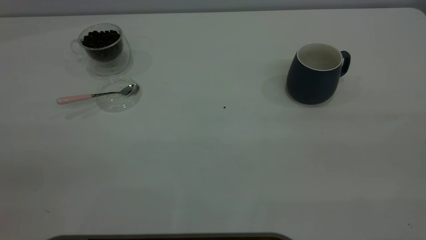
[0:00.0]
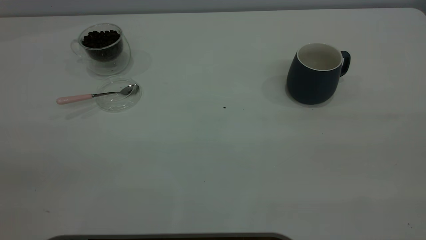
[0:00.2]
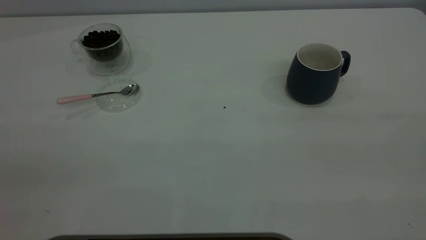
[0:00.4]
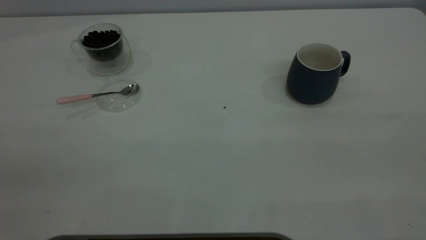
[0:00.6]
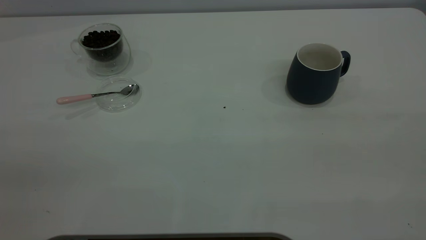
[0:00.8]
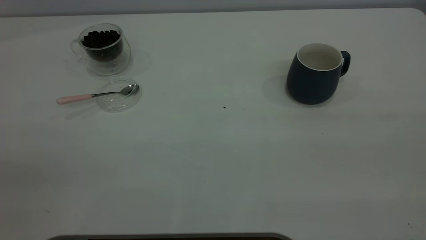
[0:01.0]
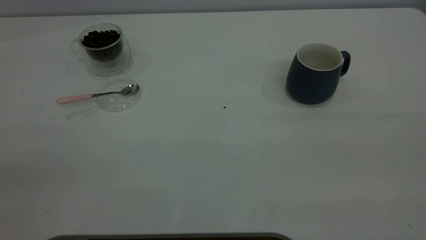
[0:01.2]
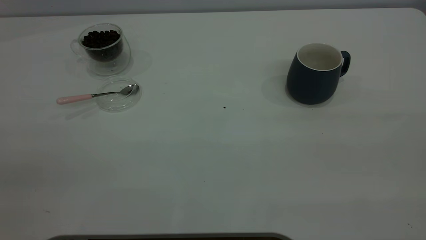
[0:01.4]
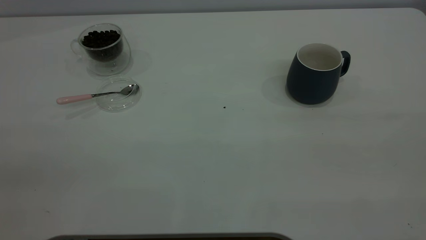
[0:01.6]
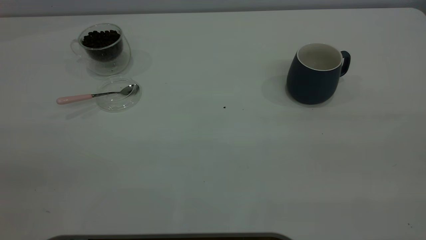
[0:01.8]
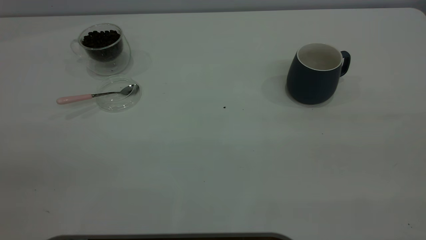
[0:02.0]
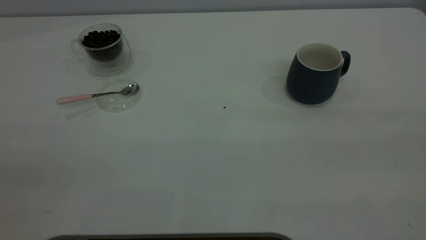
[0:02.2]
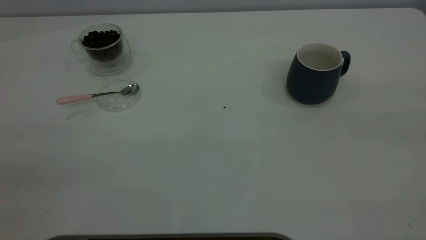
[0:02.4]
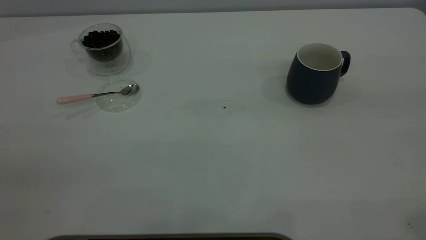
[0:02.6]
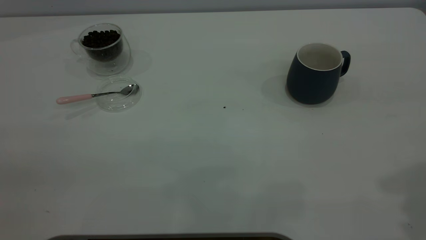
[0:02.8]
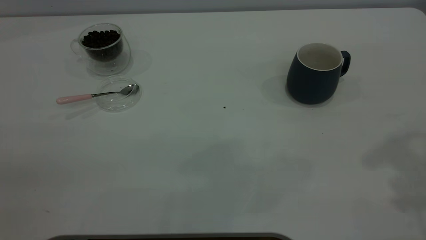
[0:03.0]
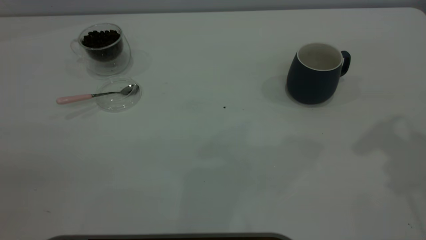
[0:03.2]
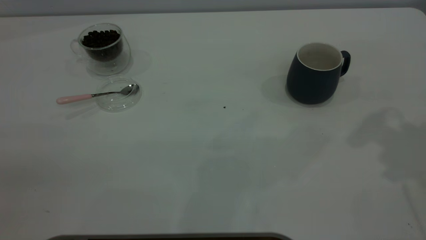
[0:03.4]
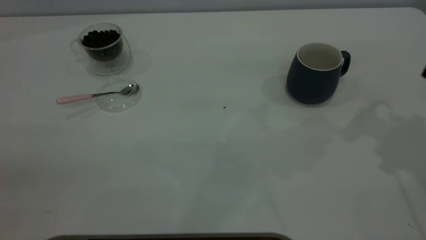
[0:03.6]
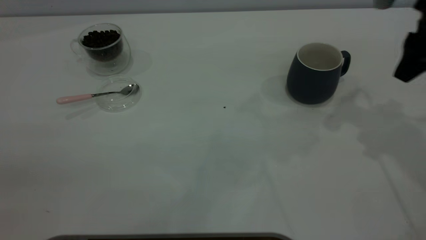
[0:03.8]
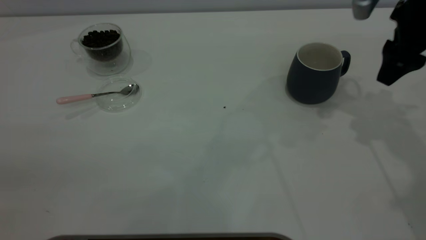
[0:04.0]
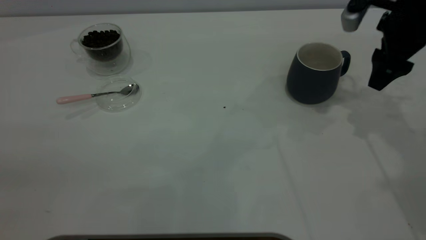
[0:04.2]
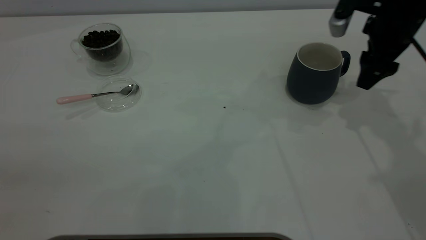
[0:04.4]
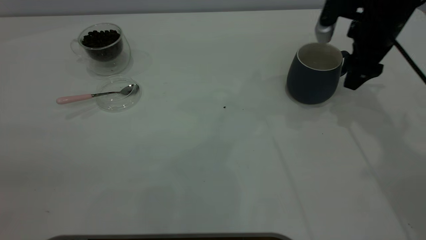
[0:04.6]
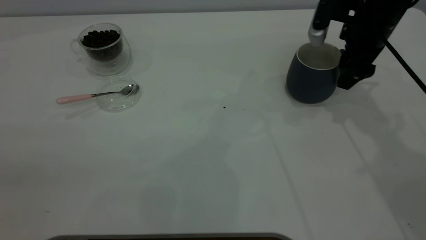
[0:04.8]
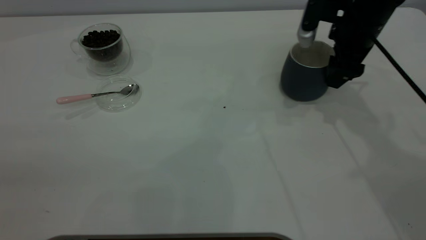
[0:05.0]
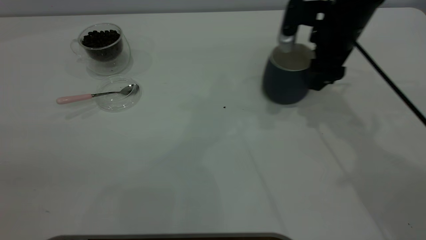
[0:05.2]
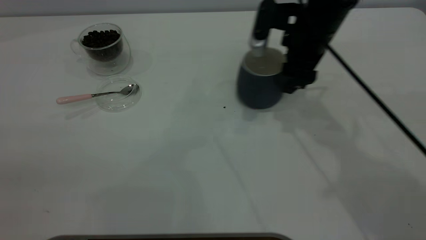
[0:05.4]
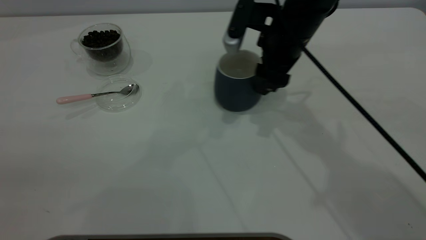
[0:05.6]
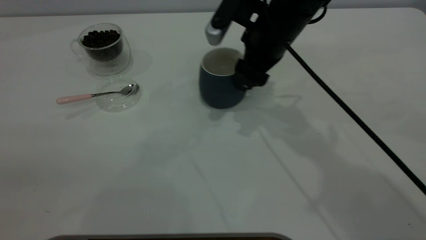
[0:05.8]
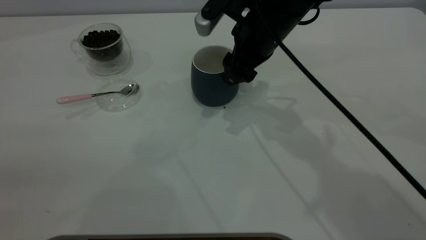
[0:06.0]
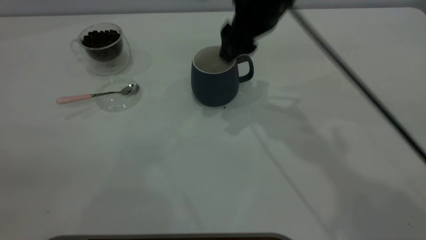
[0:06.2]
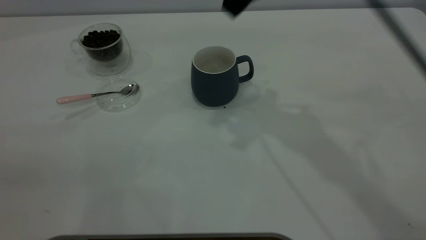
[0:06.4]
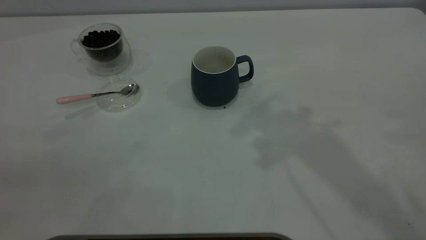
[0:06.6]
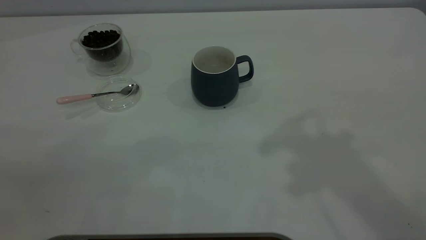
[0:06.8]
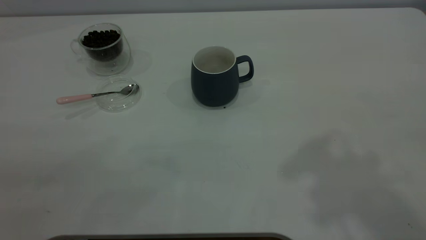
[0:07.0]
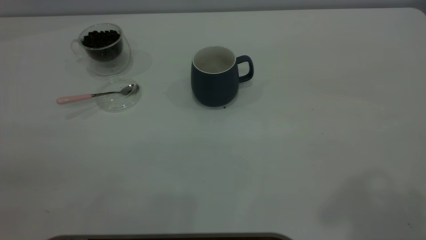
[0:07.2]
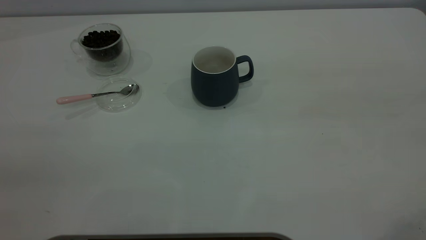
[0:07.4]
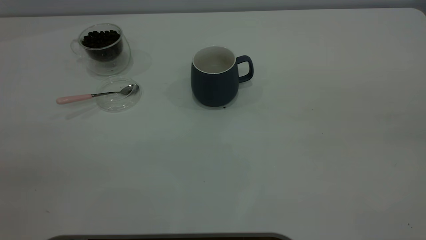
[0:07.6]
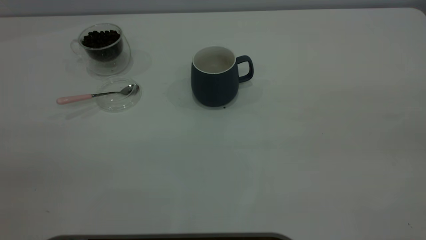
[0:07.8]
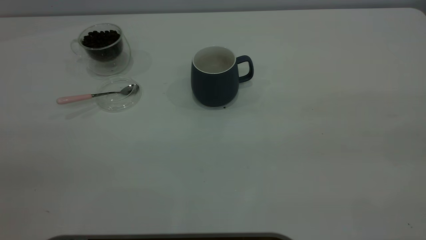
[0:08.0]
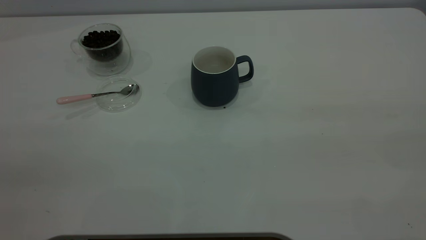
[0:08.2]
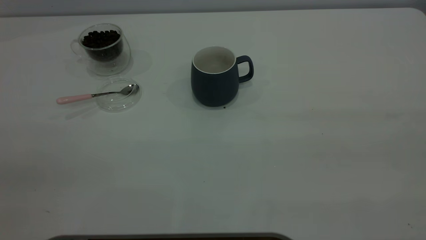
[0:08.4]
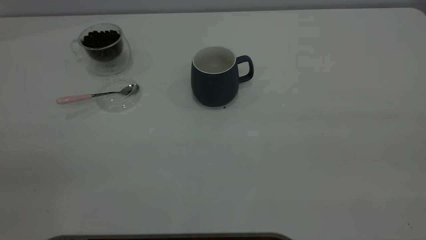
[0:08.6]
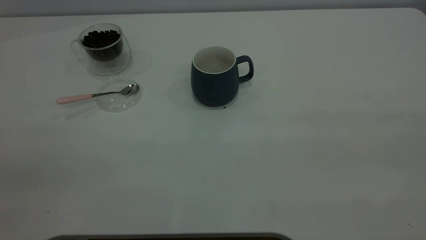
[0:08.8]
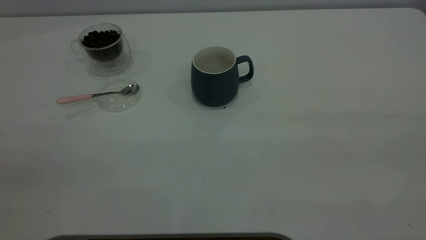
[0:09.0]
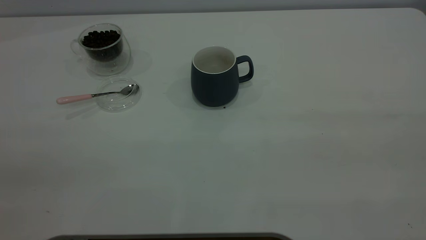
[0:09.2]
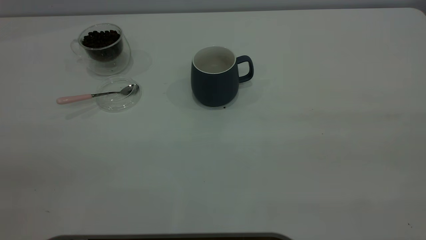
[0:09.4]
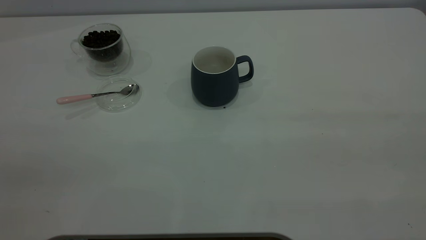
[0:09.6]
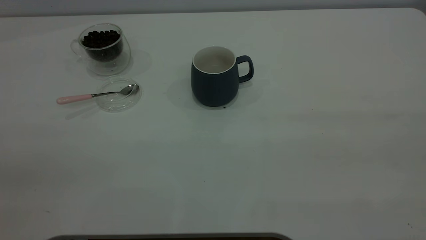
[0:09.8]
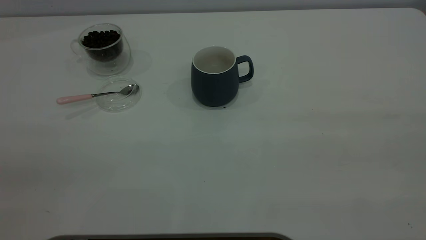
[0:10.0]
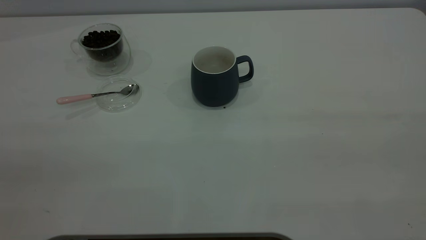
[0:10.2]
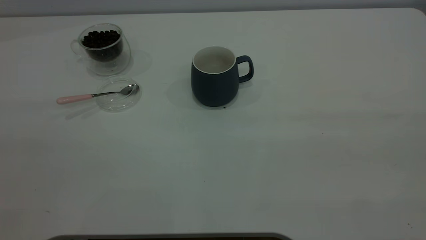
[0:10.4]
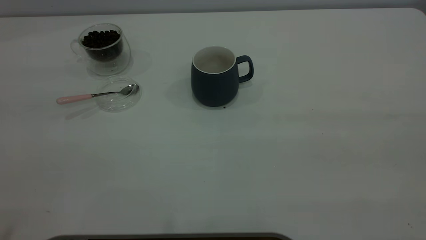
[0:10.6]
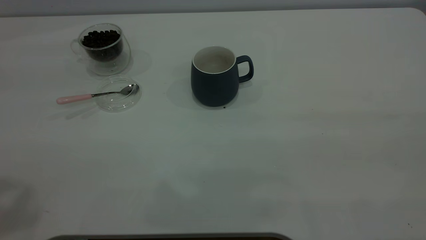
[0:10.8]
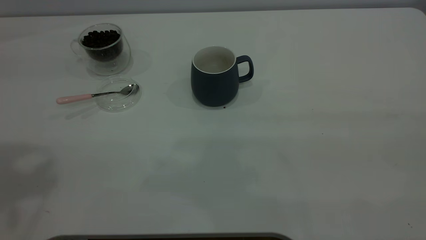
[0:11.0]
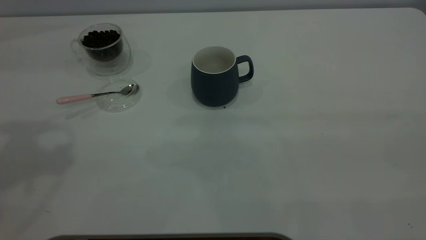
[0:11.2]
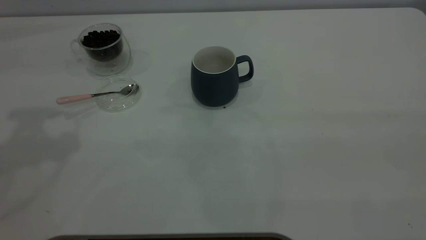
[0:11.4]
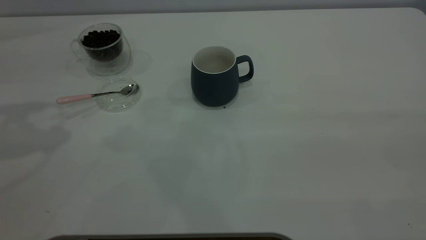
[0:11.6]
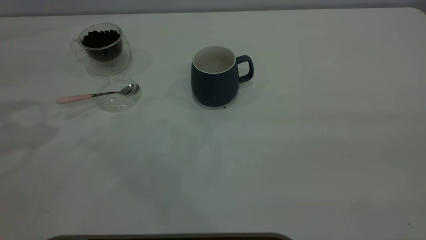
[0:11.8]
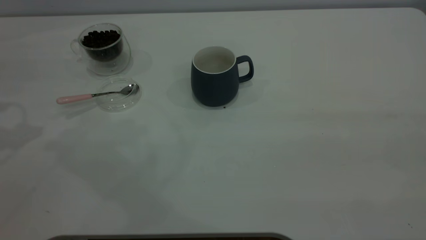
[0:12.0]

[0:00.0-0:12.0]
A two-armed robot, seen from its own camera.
Task of the whole recording: the right gripper place the grey cup in the center of the table, the left gripper take the pink spoon from the cup lid and scoop out the coffee beans from the coffee cup and put them into the grey cup, the left gripper put the spoon back into the cup lid.
Step, 0:00.0 to 0:06.2: Move the cup to the center of view.
0:00.0 to 0:01.6: Both grippers stay about where they are.
0:03.0 to 0:04.4: The right gripper shifts approximately 25 cm downward and forward.
0:04.4 to 0:06.0: The right gripper shifts approximately 20 cm to the left.
0:06.0 to 0:07.6: The right gripper goes some 50 cm backward, upward and to the right.

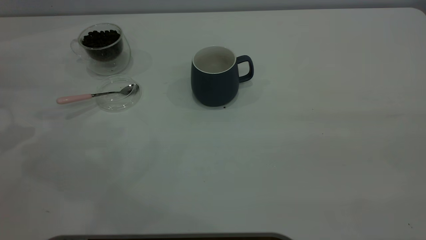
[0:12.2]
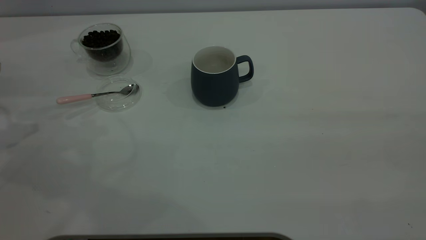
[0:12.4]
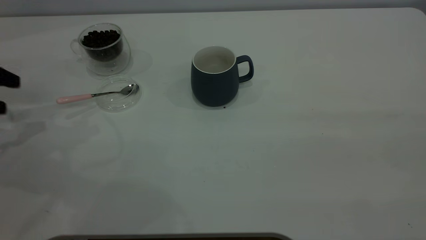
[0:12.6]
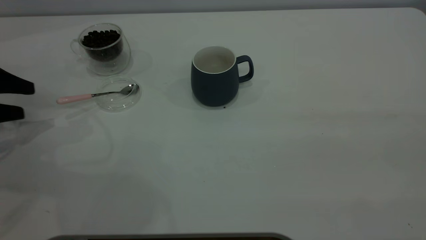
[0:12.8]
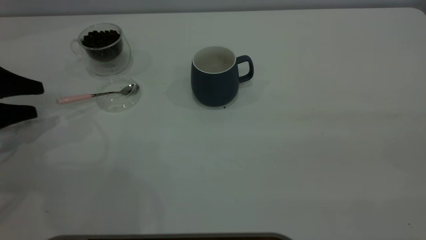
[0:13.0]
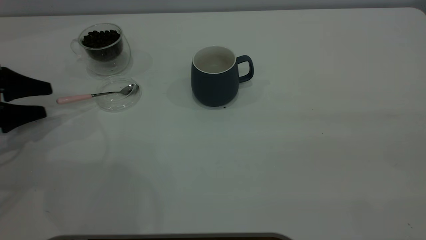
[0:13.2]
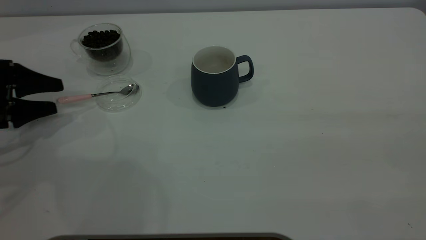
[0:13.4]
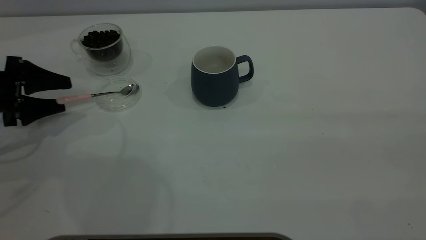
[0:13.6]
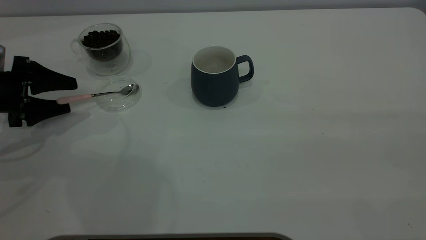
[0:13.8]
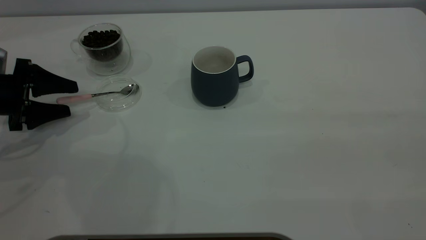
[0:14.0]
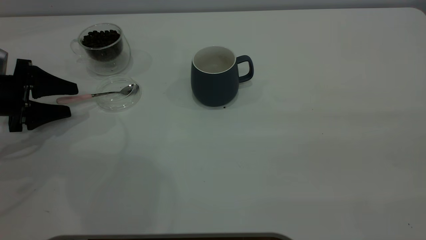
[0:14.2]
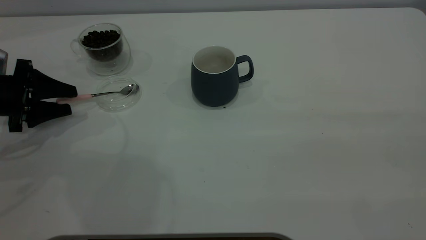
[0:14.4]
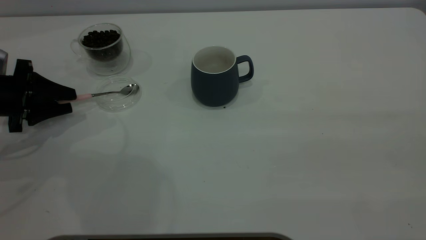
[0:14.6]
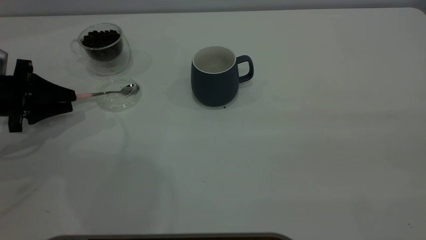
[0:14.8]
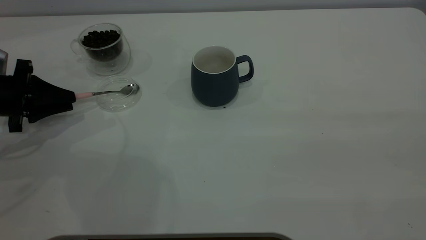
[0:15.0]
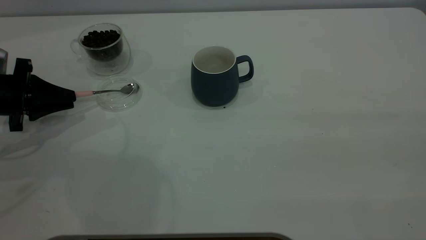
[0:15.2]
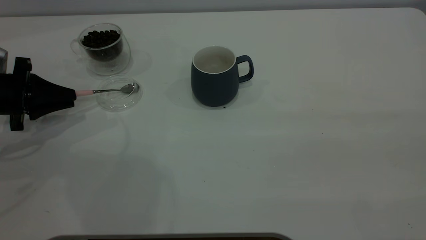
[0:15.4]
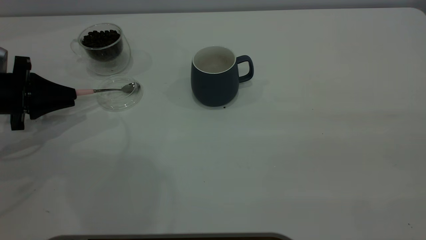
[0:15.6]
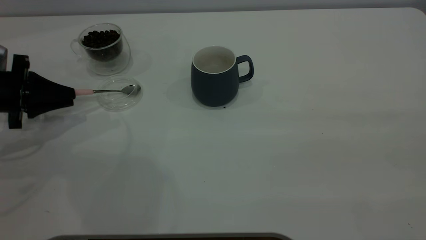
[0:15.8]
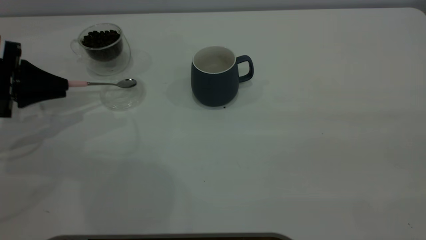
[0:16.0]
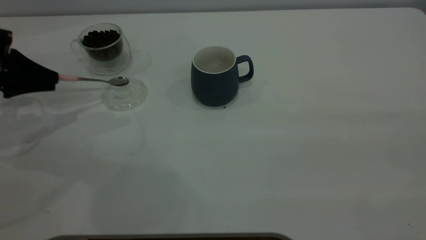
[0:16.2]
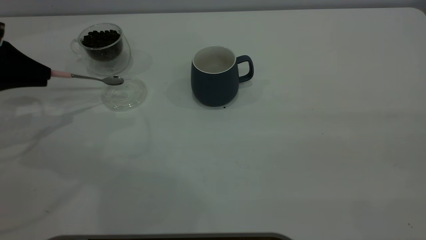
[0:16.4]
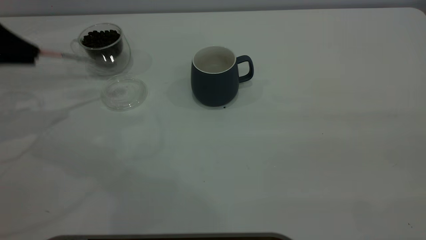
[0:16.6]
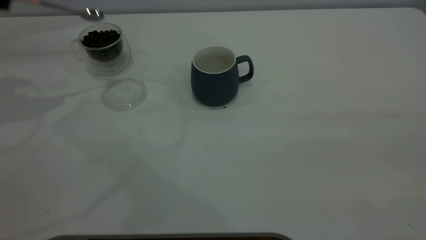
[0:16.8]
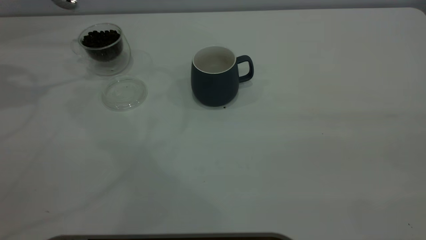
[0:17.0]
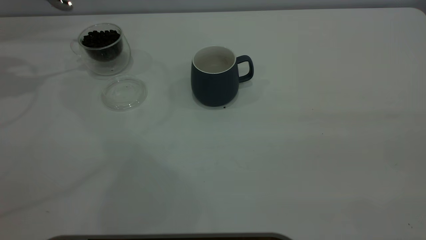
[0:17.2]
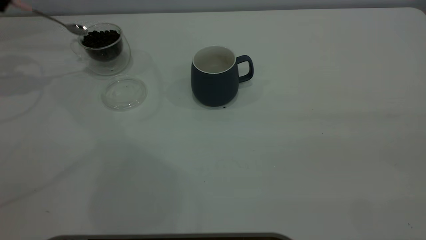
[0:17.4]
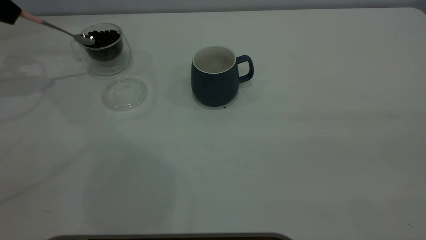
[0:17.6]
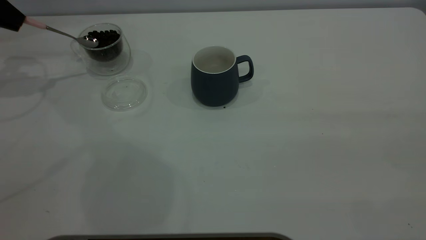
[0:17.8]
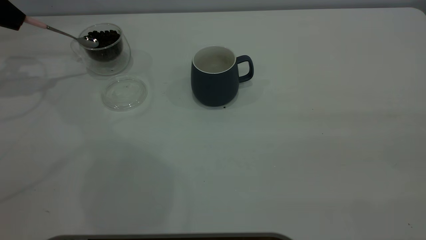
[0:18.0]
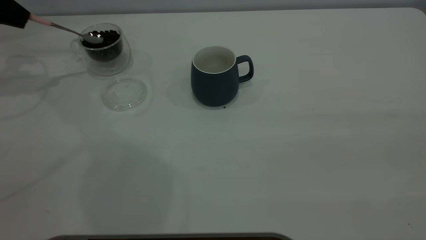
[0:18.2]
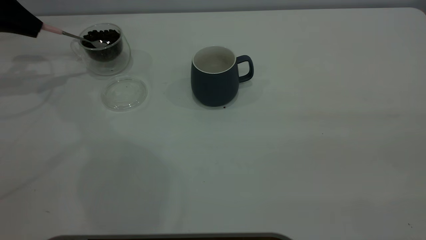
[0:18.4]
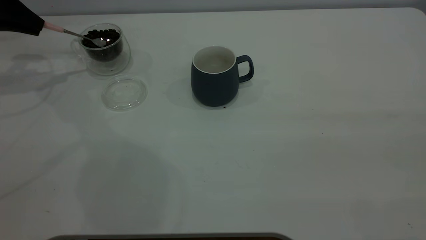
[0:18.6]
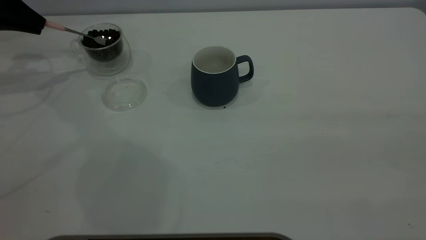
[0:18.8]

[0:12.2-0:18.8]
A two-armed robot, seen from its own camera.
Task of the whole recording: the right gripper place the grey cup in the center of the table, the left gripper take the pink spoon from the cup lid and scoop out the coffee beans from the coffee cup and put them into the grey cup, the left gripper put the spoon back into the cup lid.
Step, 0:12.2 to 0:16.4: Pick up the spoon.
0:12.2 to 0:13.8: The left gripper is displaced downward and to the right by about 15 cm.
0:13.8 to 0:15.4: The left gripper closes.
0:15.4 to 0:17.2: The left gripper moves upward and forward, some 25 cm.
0:17.2 to 0:18.8: The left gripper is displaced downward by some 10 cm.
